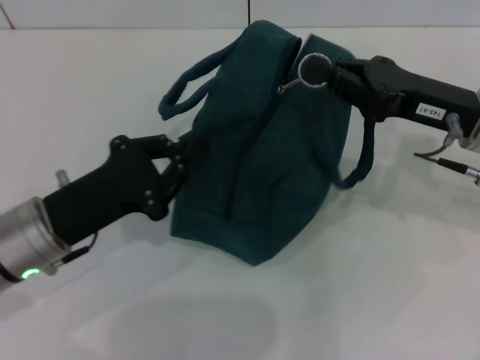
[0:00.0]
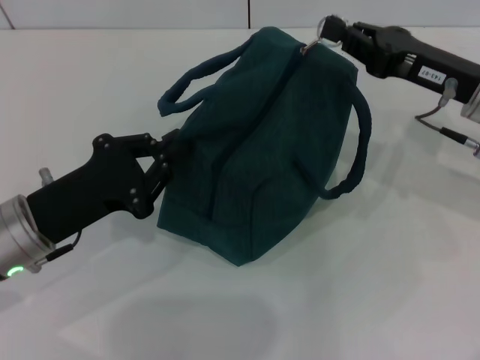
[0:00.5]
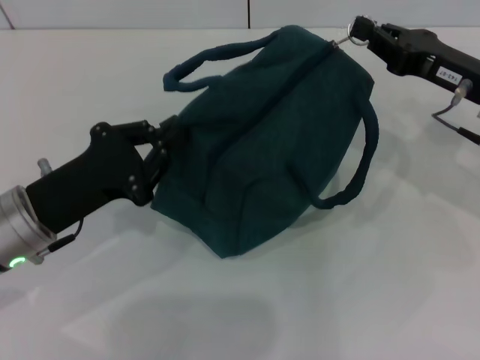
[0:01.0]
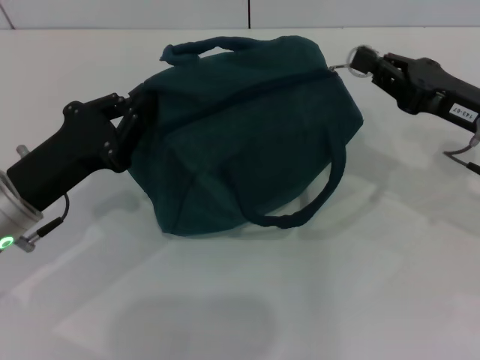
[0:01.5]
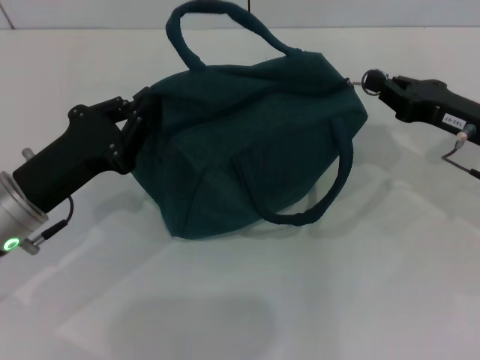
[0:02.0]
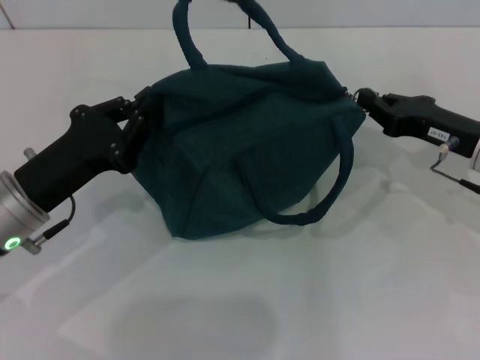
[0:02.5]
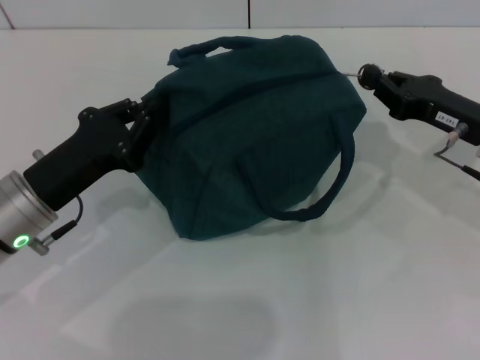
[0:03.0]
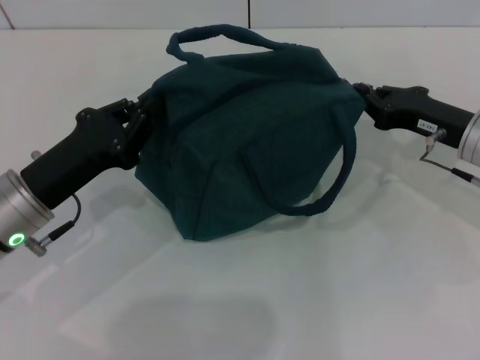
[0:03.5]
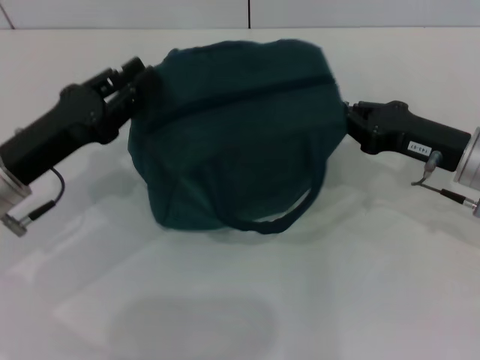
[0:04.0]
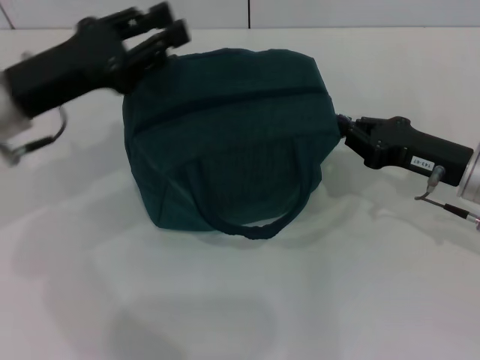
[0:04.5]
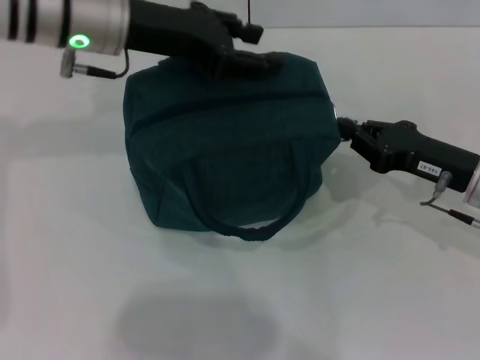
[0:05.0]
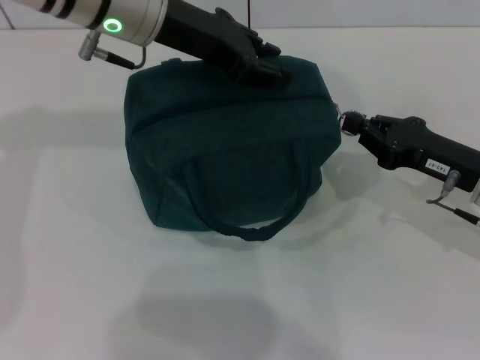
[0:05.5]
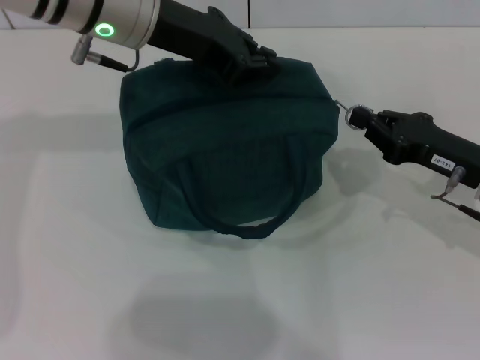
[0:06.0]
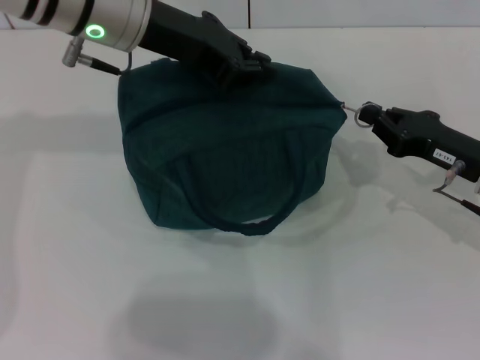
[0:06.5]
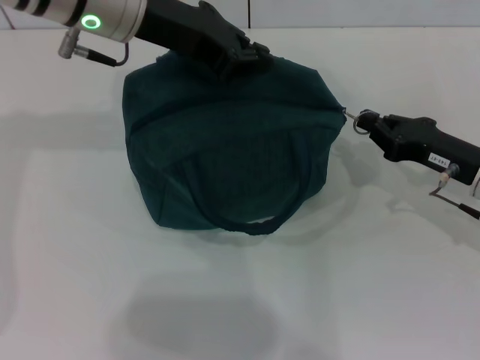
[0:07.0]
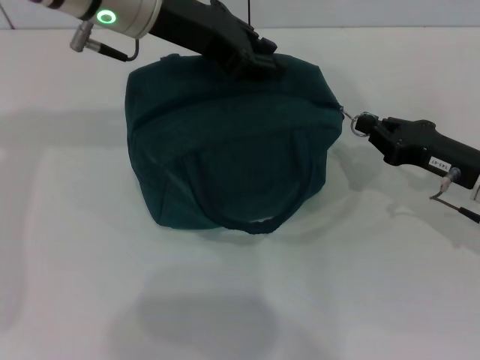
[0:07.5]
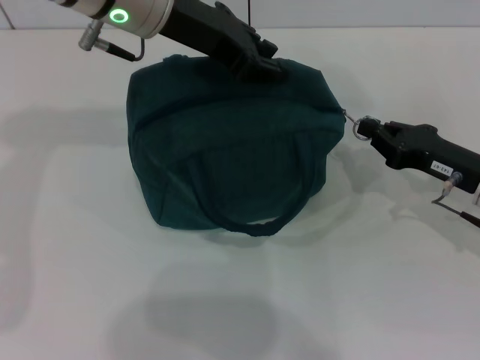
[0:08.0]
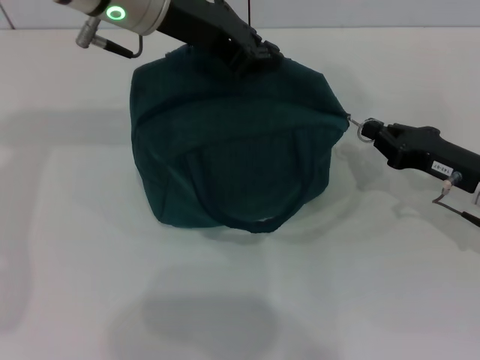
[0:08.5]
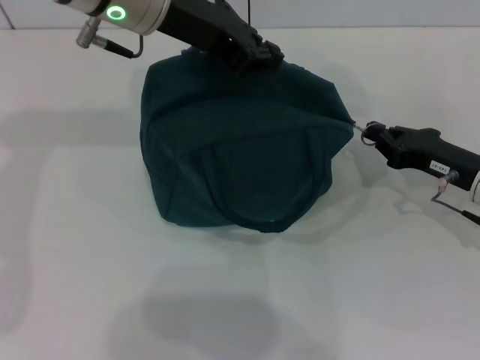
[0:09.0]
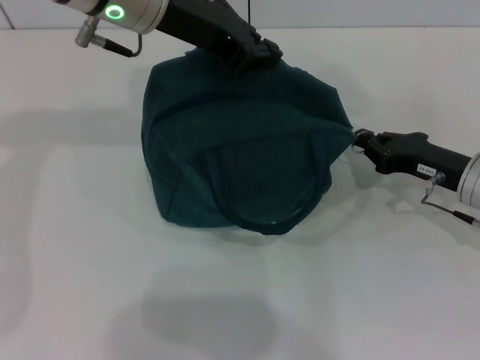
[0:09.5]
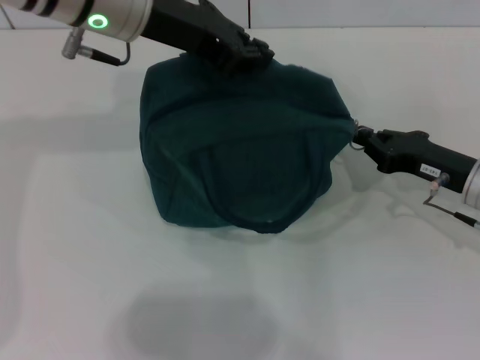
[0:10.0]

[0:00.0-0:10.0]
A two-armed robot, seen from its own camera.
0:00.0 to 0:02.0: The right gripper changes place by approximately 5 cm.
0:02.0 to 0:04.0: The grippers make only small movements.
0:04.0 to 0:06.0: The left gripper is displaced upward, to the right and forward by approximately 20 cm, and opens, then closes again.
0:06.0 to 0:08.0: The left gripper opens up.
0:08.0 to 0:10.0: The left gripper closes.

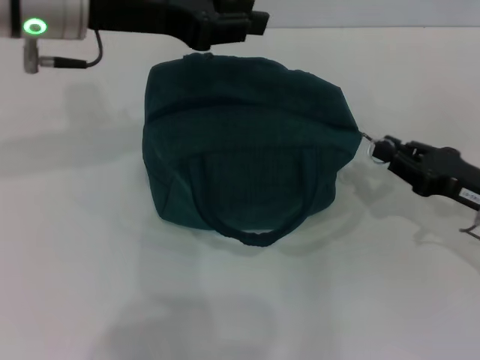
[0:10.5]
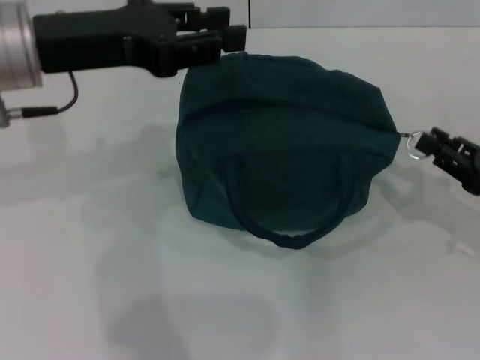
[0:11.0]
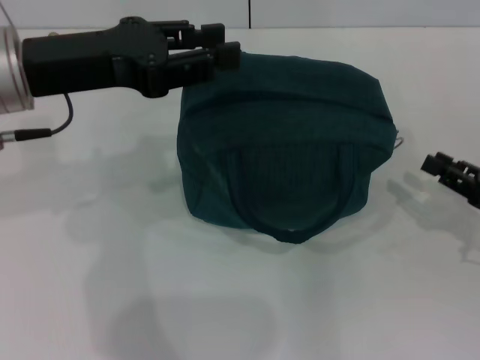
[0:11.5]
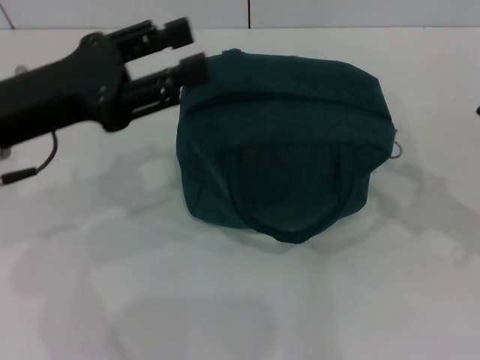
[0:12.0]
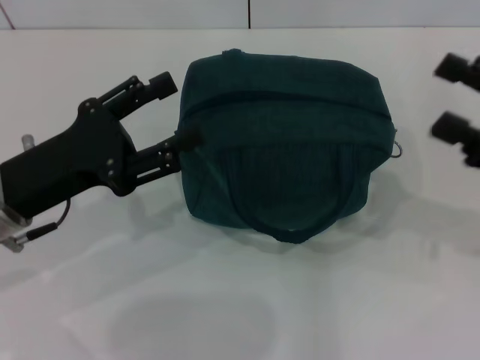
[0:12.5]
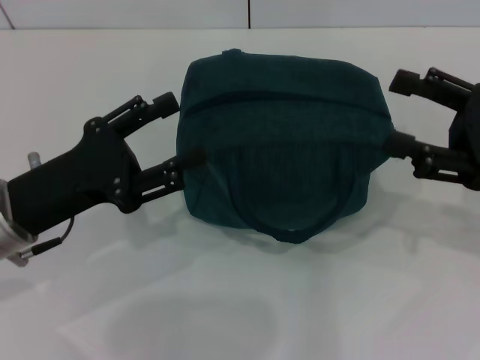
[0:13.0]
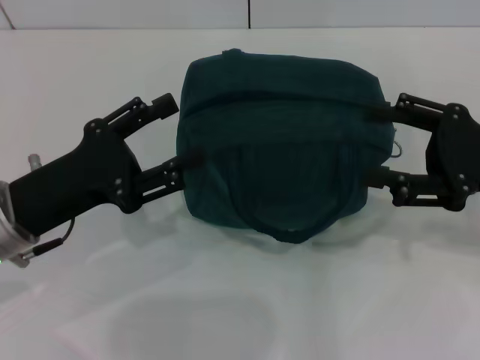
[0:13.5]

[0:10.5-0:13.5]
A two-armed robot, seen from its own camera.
Step, 0:10.5 to 0:11.0: Zip up the lunch bag with your right hand.
0:10.5 to 0:12.0: The right gripper travels upward and to the right by approximately 5 cm, and opens up, while the left gripper travels backward, downward and to the left by approximately 10 cm.
0:12.0 to 0:13.5: The right gripper is displaced to the left by about 5 cm, and opens up, while the left gripper goes about 10 cm downward.
